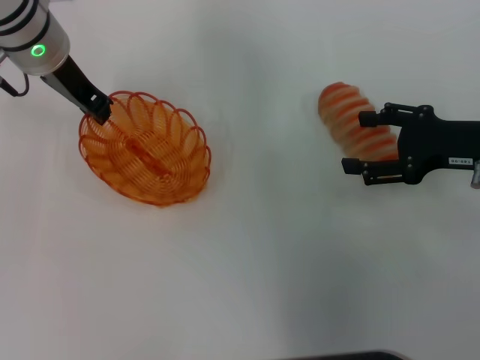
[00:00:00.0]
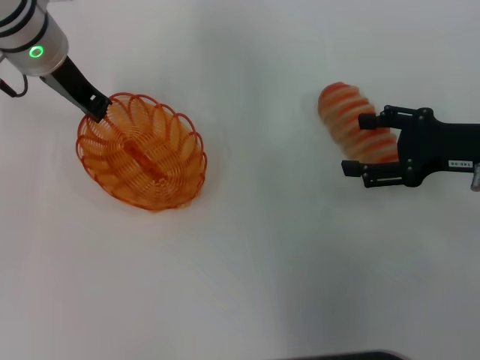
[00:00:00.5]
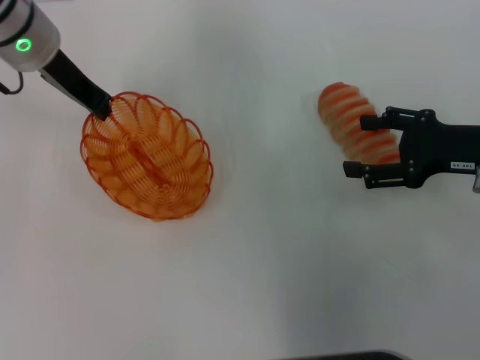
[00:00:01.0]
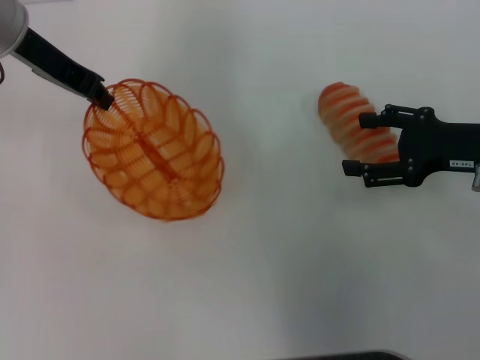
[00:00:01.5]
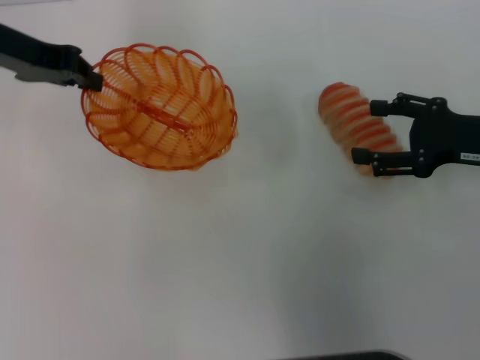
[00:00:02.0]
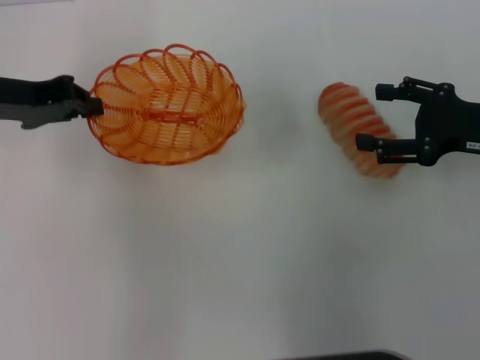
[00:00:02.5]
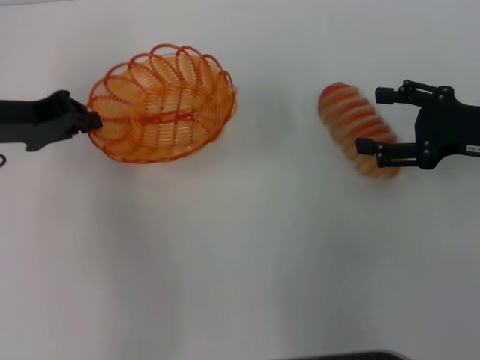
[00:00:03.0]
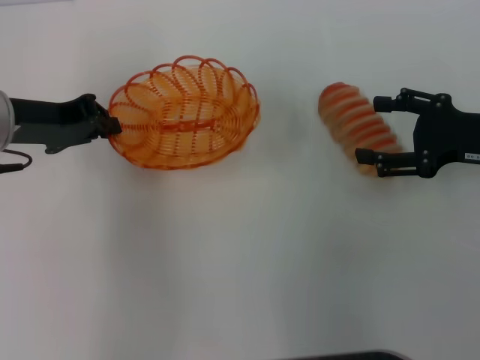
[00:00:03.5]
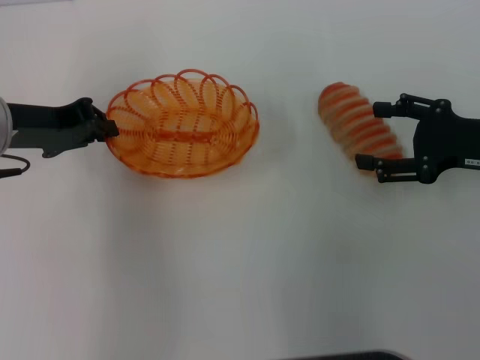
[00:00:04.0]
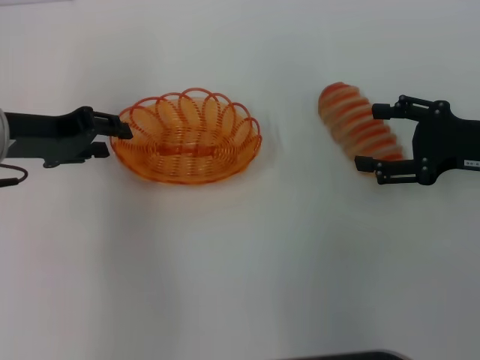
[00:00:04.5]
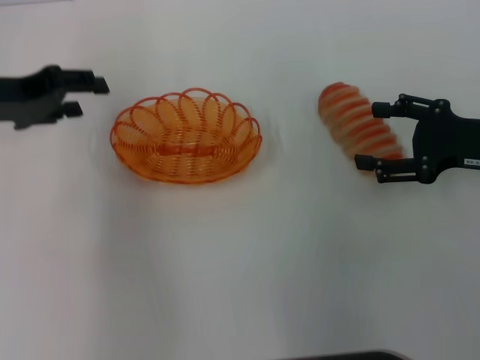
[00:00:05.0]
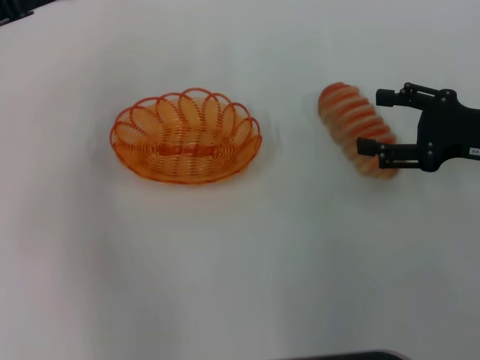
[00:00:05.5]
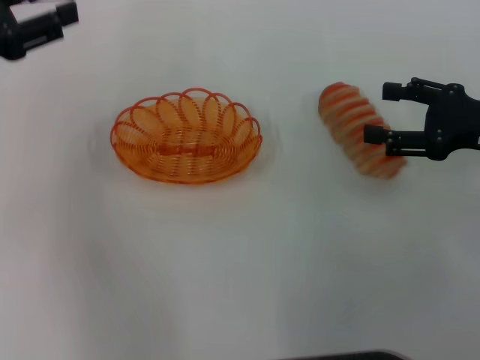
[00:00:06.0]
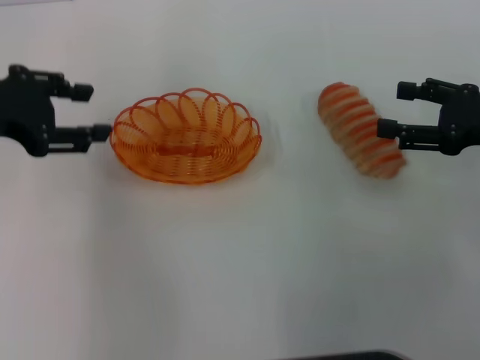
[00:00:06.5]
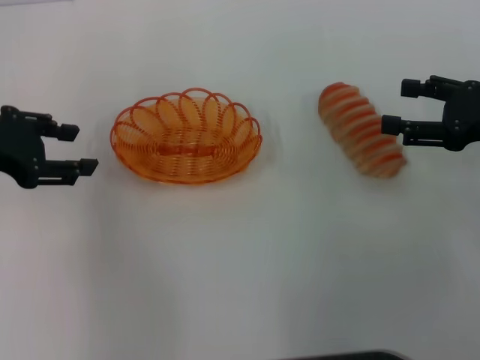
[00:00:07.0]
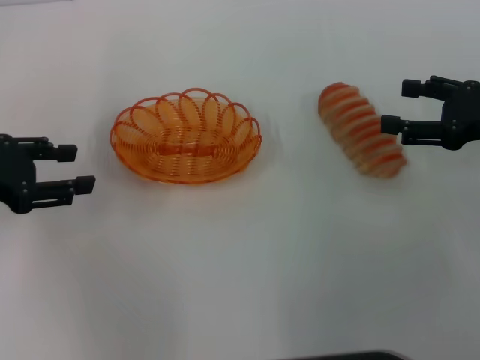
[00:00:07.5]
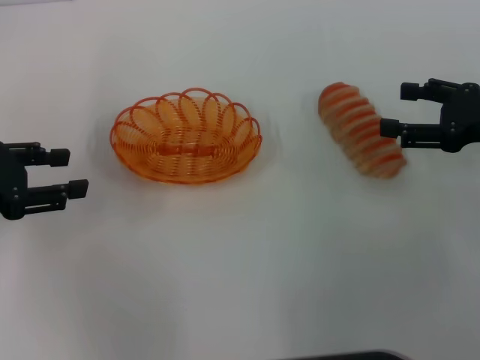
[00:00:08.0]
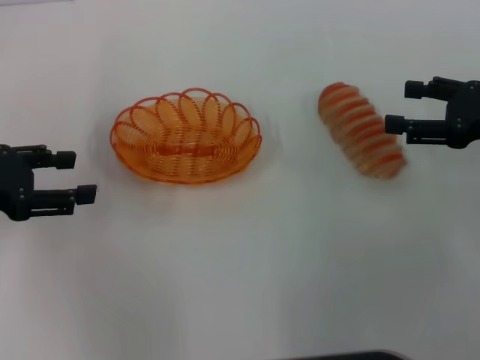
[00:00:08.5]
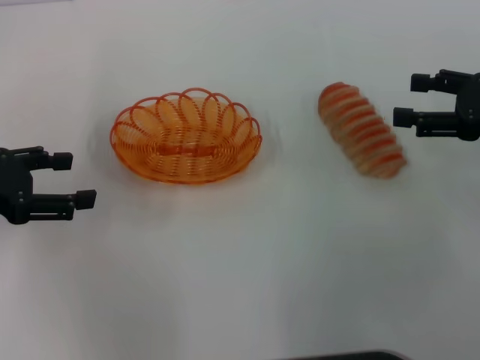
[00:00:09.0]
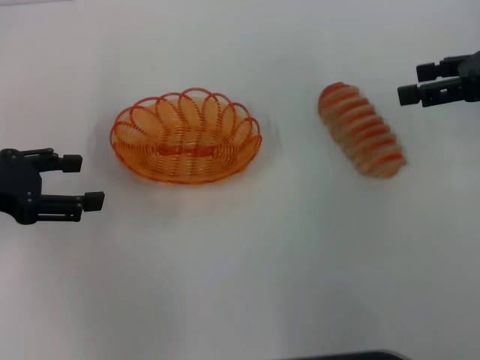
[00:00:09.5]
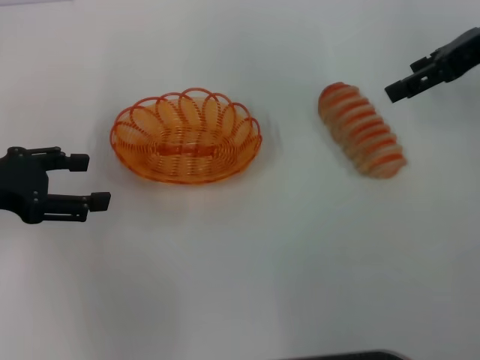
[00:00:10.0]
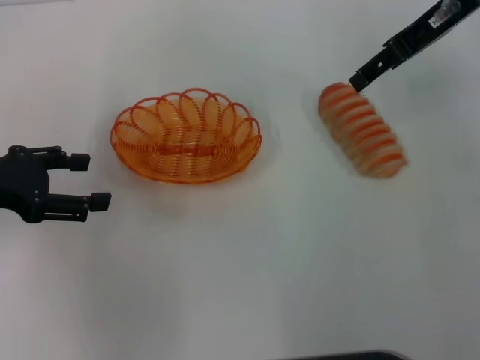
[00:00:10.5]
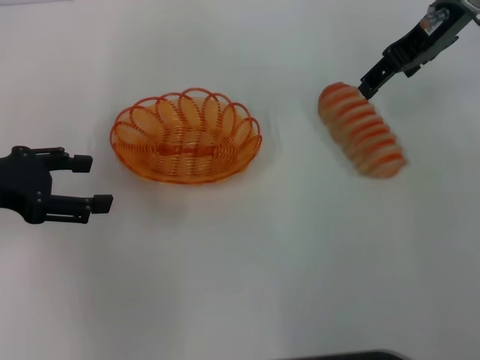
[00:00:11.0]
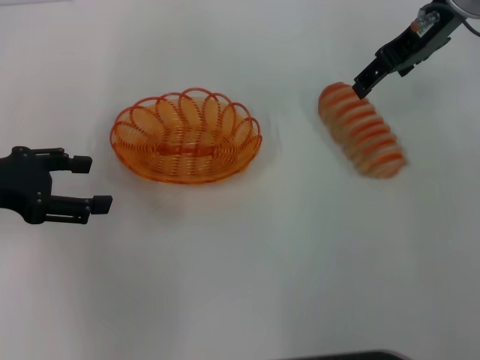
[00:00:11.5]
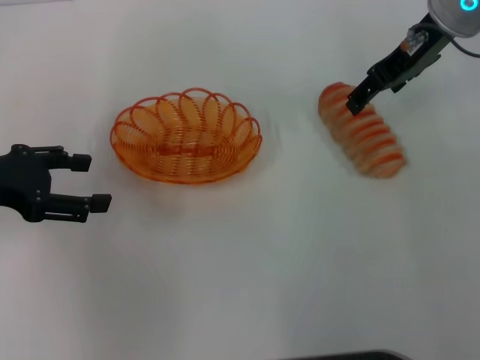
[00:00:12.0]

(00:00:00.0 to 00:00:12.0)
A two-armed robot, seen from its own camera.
Step, 00:00:02.0 - 00:00:05.0: Place the basket in the center of view with the left gripper.
00:00:00.0 - 00:00:02.0: The left gripper goes some 10 cm to the left.
00:00:02.0 - 00:00:04.0: The left gripper shifts some 10 cm backward and downward.
00:00:04.0 - 00:00:06.0: The left gripper moves to the left and upward, roughly 10 cm, and opens its fingers.
00:00:06.0 - 00:00:08.0: The left gripper moves downward, some 5 cm.
00:00:08.0 - 00:00:10.0: The right gripper travels upward and forward by some 15 cm.
00:00:10.0 - 00:00:12.0: The right gripper shifts roughly 10 cm to the left.

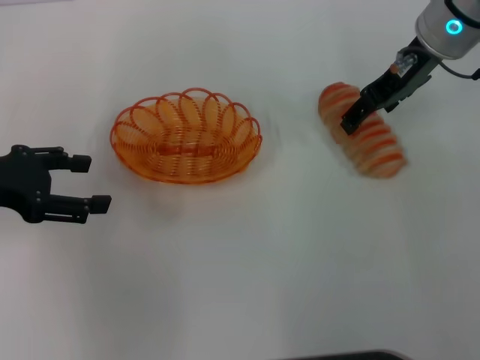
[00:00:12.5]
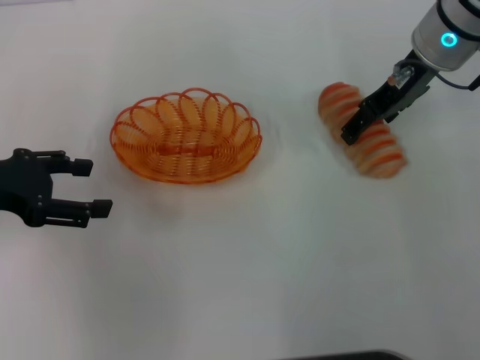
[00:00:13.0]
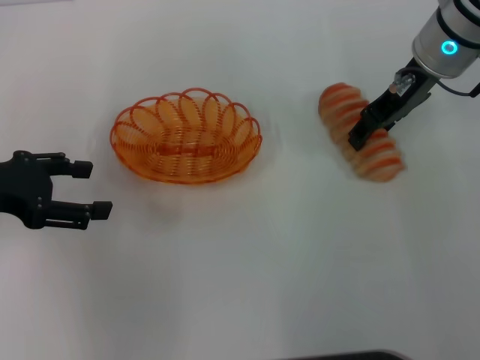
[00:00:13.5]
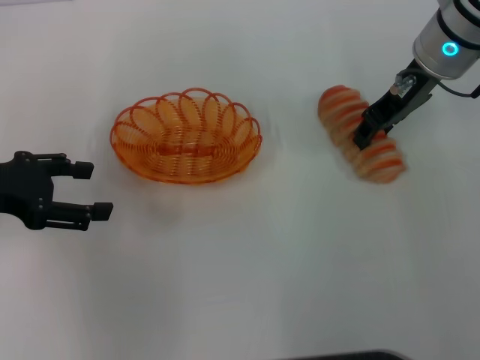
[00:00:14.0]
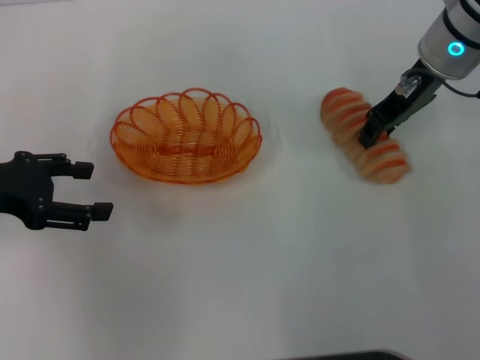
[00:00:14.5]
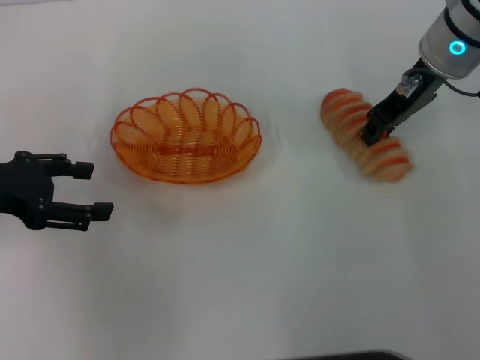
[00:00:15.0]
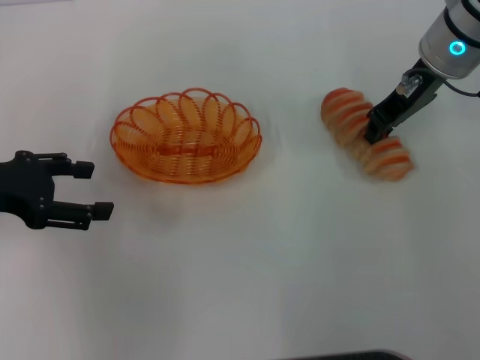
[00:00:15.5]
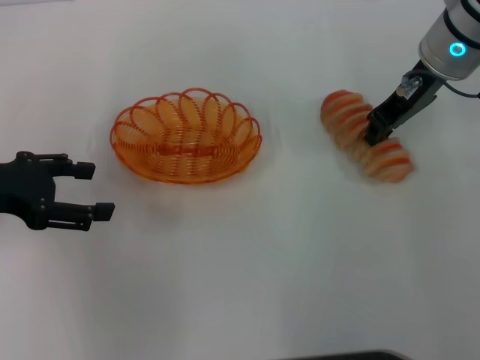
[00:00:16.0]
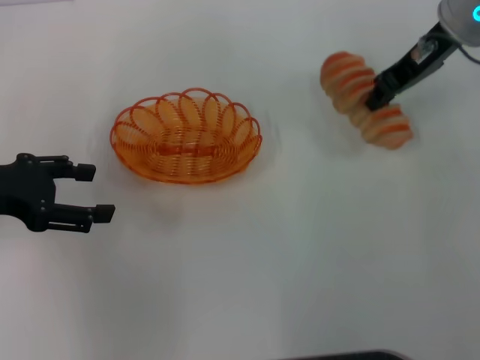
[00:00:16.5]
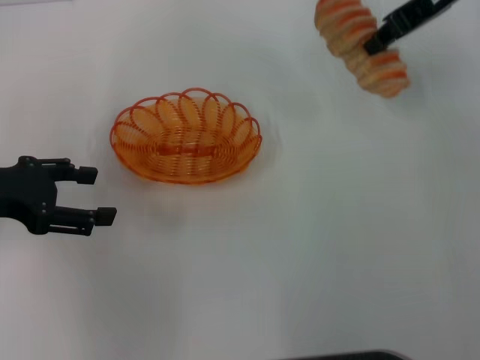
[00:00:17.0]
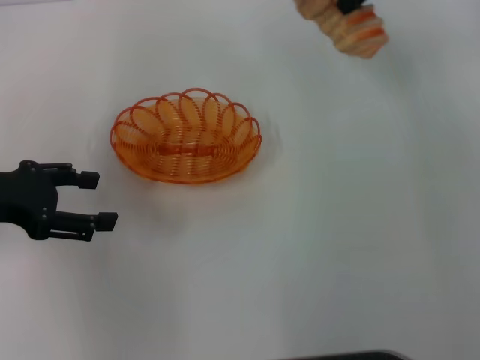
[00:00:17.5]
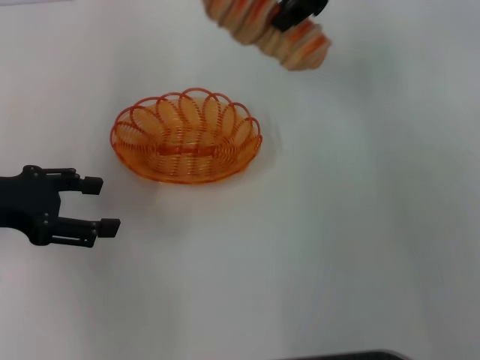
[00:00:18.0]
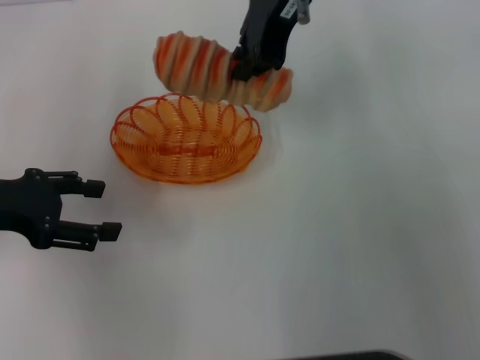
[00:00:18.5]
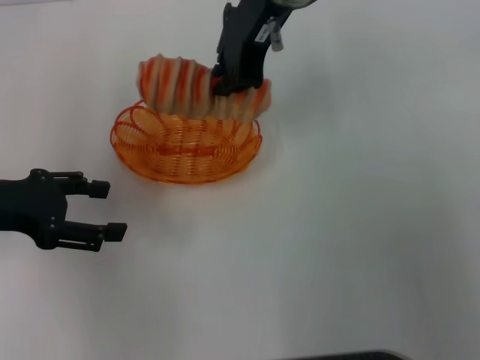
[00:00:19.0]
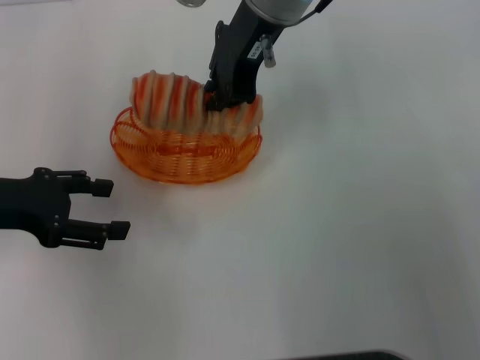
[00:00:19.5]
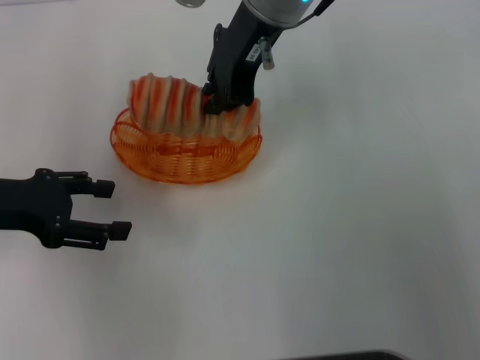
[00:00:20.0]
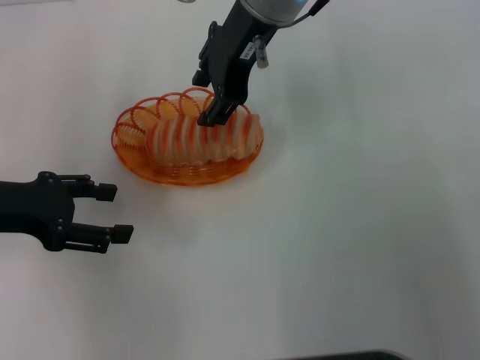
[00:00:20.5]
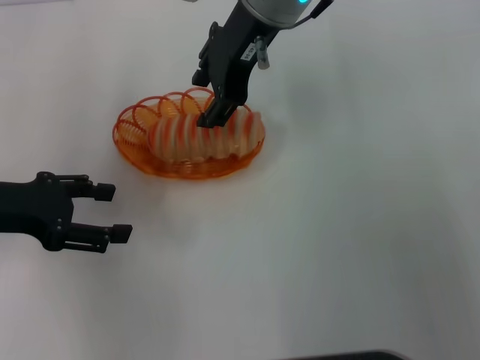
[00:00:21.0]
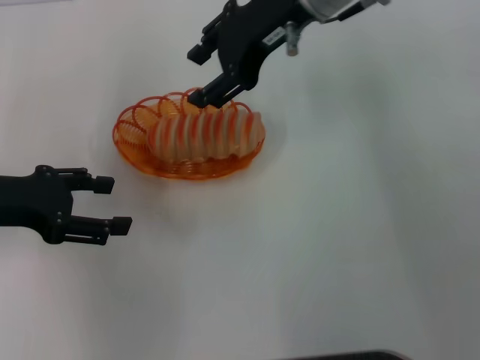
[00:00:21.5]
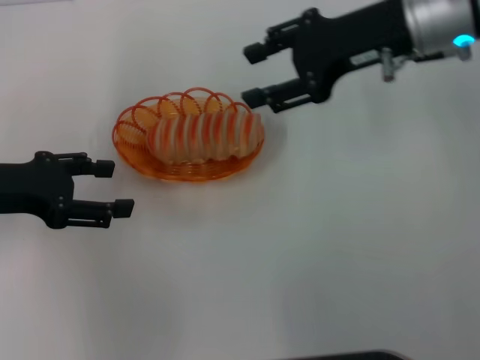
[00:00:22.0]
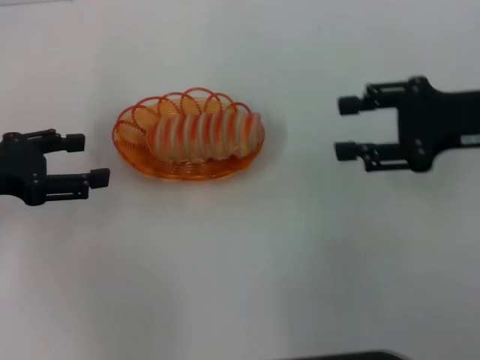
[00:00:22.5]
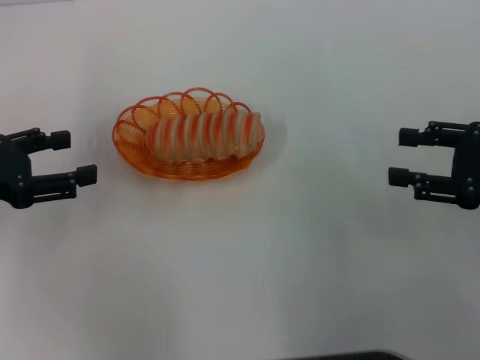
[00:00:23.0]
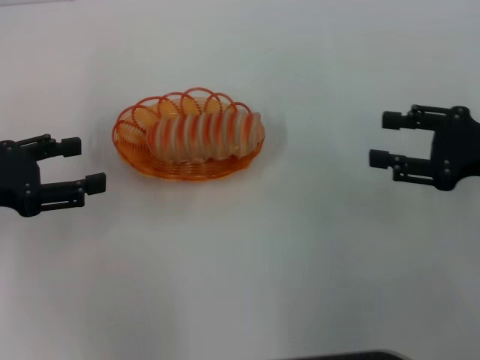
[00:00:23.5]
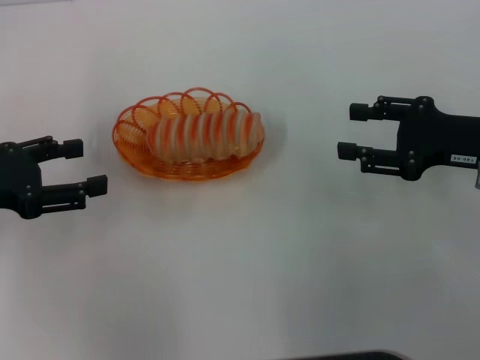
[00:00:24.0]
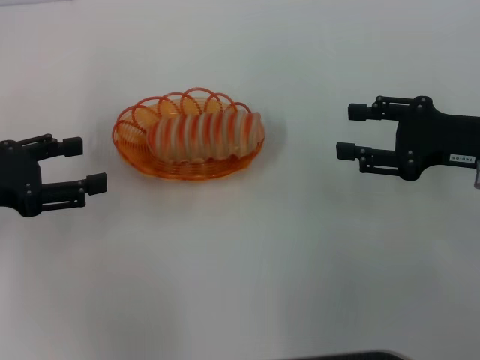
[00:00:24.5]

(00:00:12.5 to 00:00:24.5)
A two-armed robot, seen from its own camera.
Step, 00:00:12.5 - 00:00:16.5: Pick up the long bread with the right gripper.
Step, 00:00:17.0 - 00:00:22.0: Place the long bread into the basket with the right gripper.
00:00:12.5 - 00:00:14.5: The right gripper closes.
00:00:14.5 - 00:00:16.5: There are only small adjustments of the grippers.
00:00:16.5 - 00:00:18.5: The right gripper moves to the left and upward, about 15 cm.
00:00:18.5 - 00:00:20.5: The right gripper opens up.
00:00:20.5 - 00:00:22.5: The right gripper shifts about 25 cm to the right and backward.
